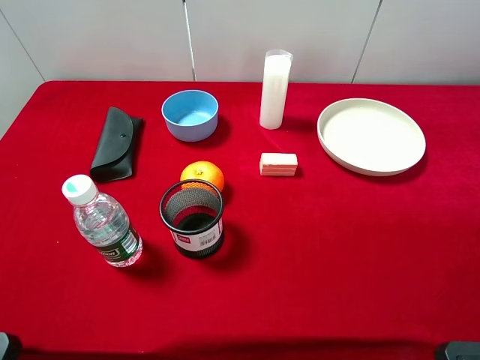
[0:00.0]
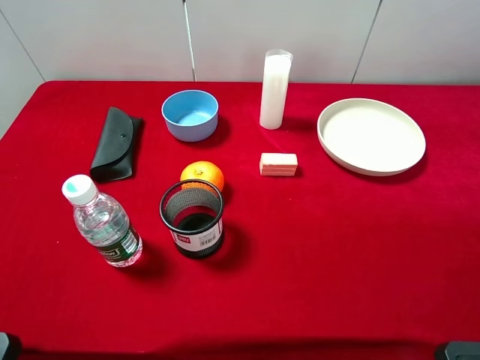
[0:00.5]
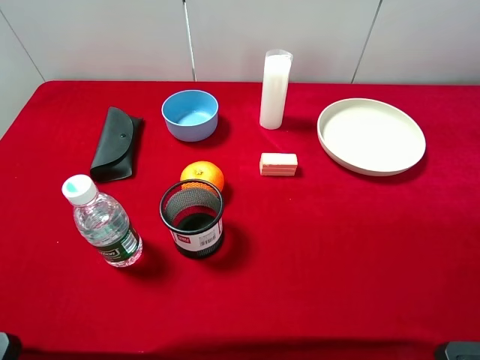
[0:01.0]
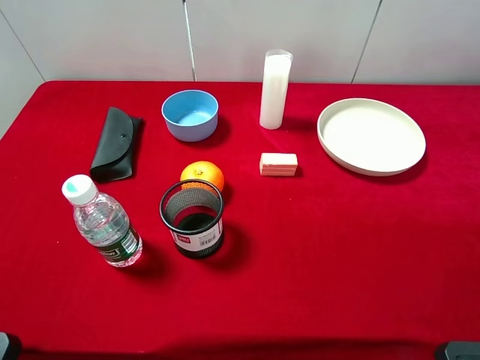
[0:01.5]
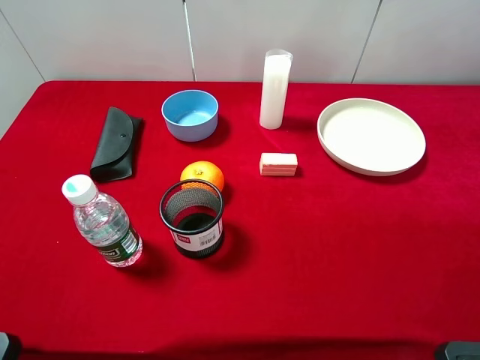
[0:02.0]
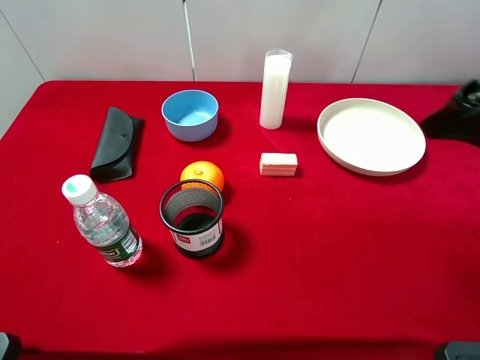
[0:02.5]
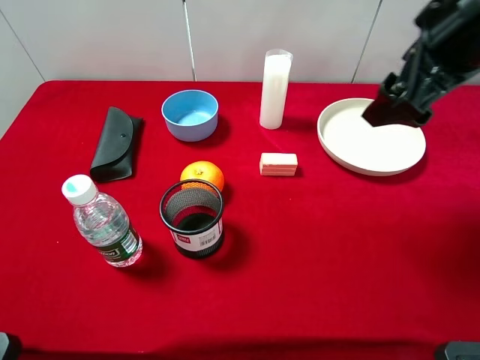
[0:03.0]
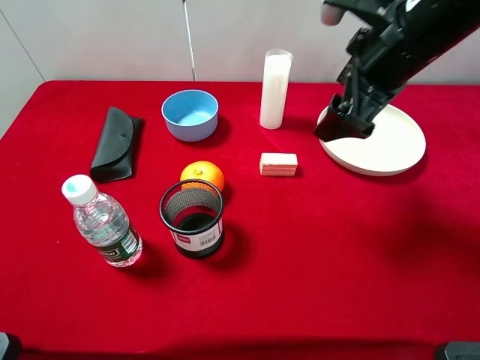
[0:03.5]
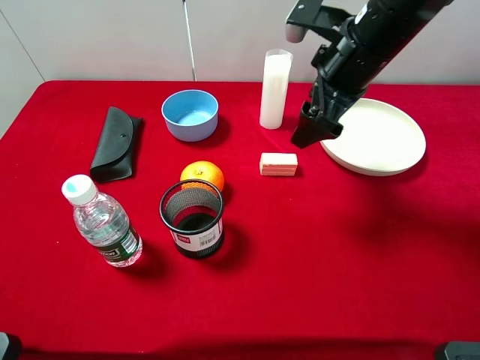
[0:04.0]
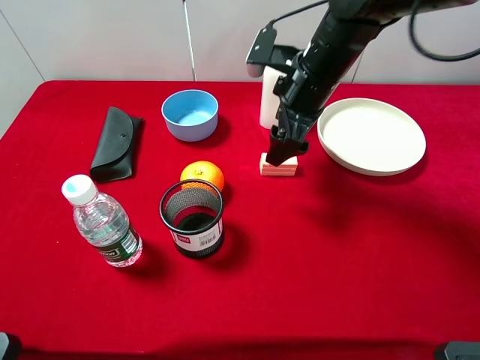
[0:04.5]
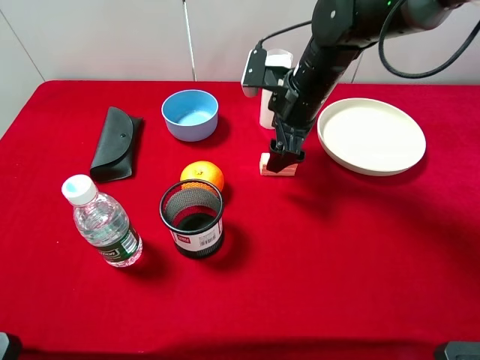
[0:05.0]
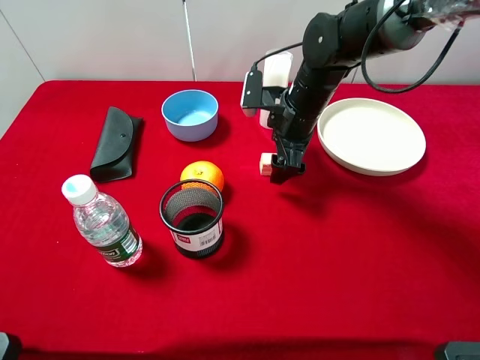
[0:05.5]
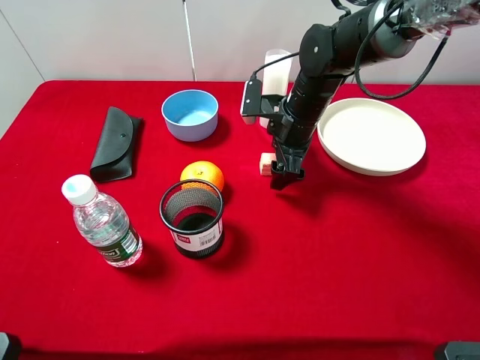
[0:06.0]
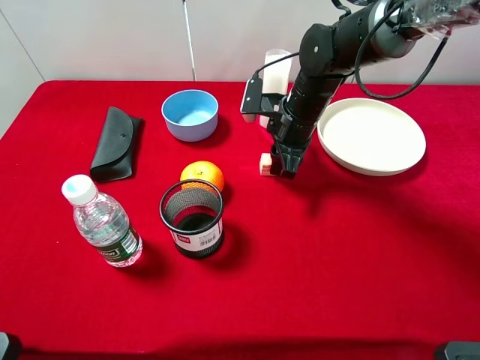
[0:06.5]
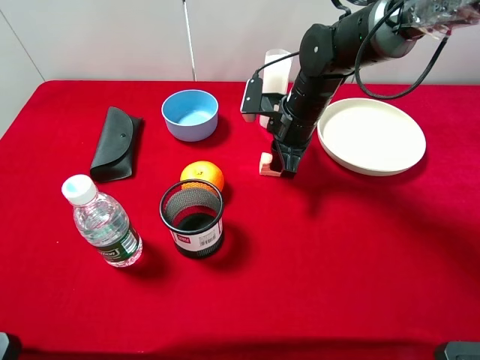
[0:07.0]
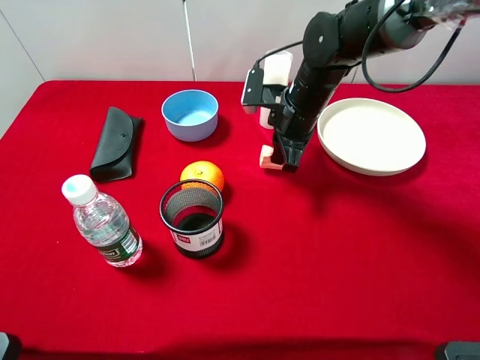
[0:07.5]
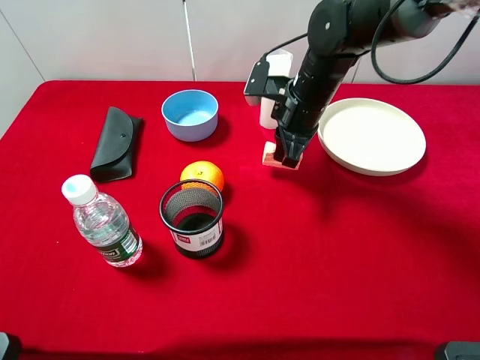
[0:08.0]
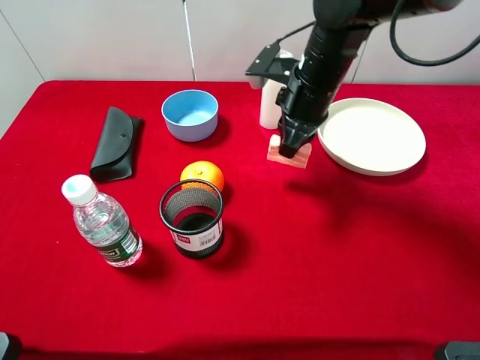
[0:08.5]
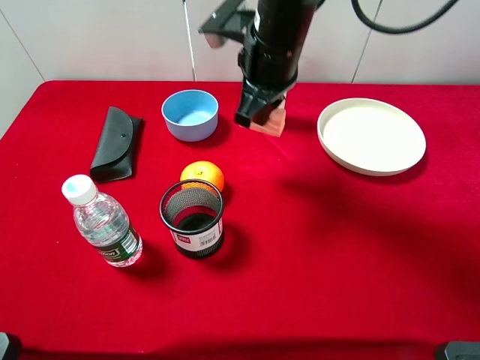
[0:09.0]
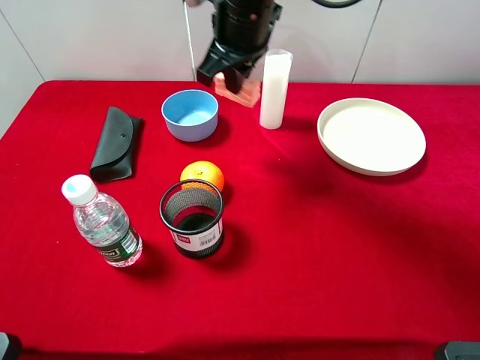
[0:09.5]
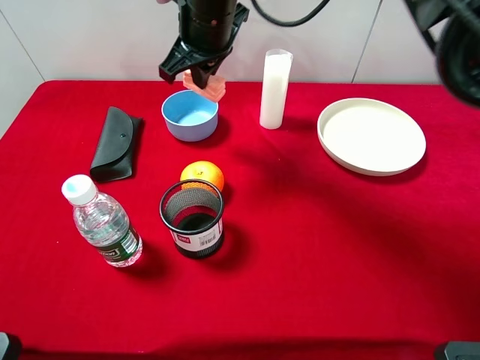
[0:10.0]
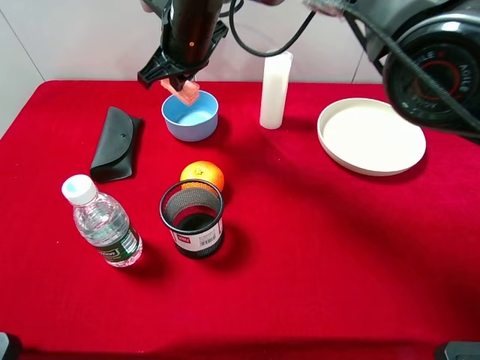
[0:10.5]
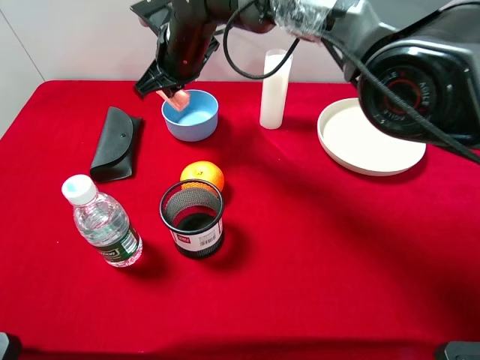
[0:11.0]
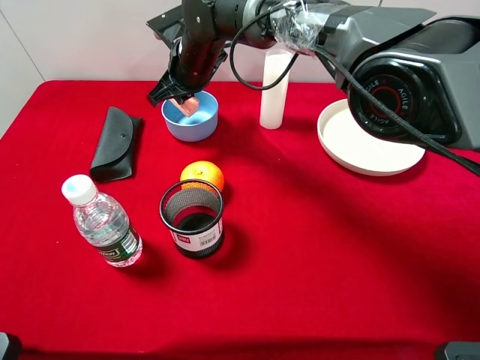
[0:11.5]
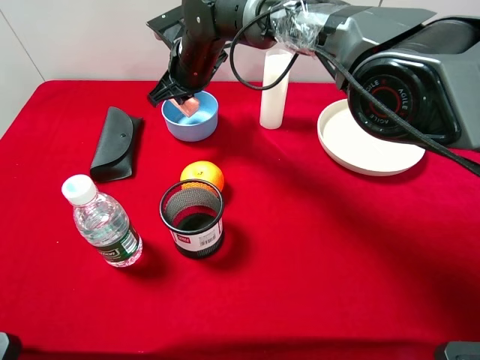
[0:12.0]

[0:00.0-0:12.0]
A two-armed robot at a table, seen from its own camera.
Task of the whole recording: pick up an item with a gripper and place it in a random container on the desktop.
0:02.0 to 0:04.0: The right gripper shifts roughly 25 cm forward and to the left.
0:04.0 to 0:06.0: The right gripper travels downward by some 15 cm.
0:06.0 to 0:08.0: The right gripper closes.
0:08.0 to 0:10.0: The right gripper moves to the left and upward, about 20 cm.
0:10.0 to 0:12.0: The right gripper shifts some 10 cm downward and forward.

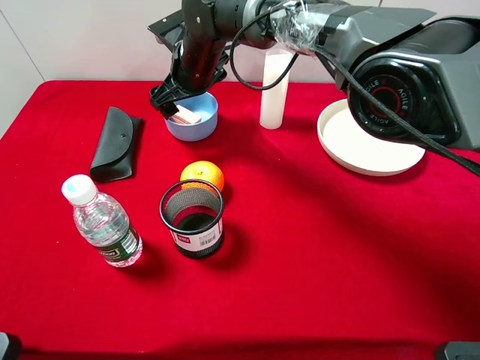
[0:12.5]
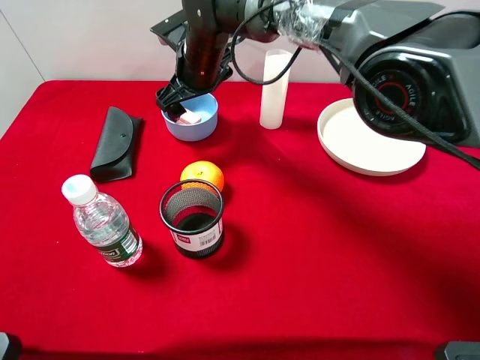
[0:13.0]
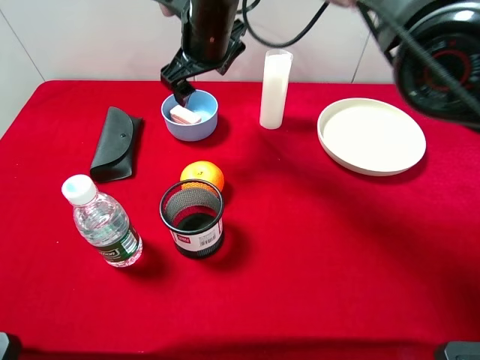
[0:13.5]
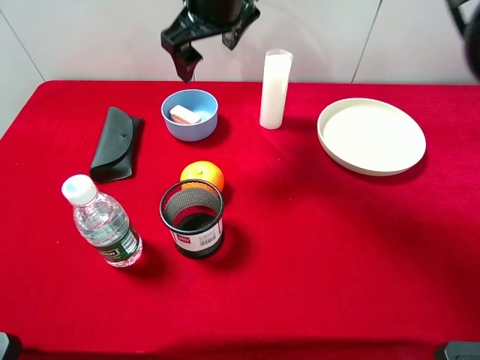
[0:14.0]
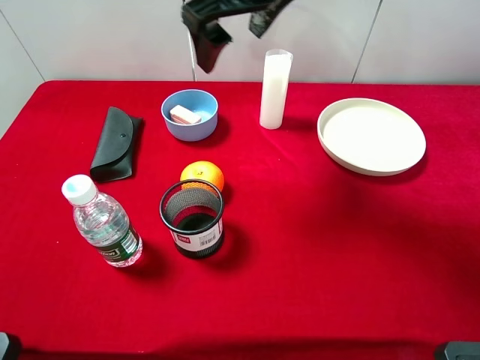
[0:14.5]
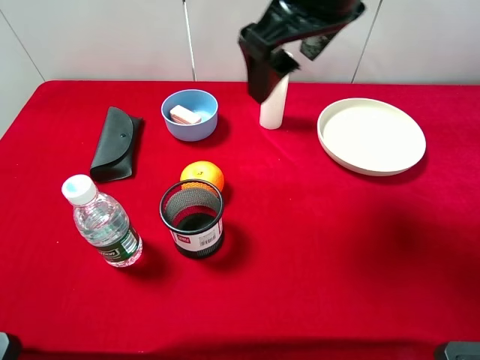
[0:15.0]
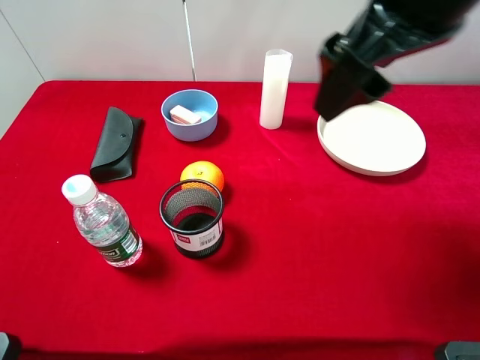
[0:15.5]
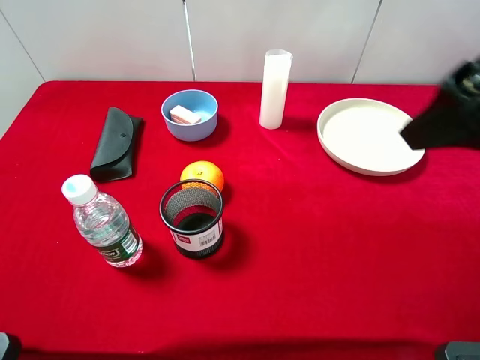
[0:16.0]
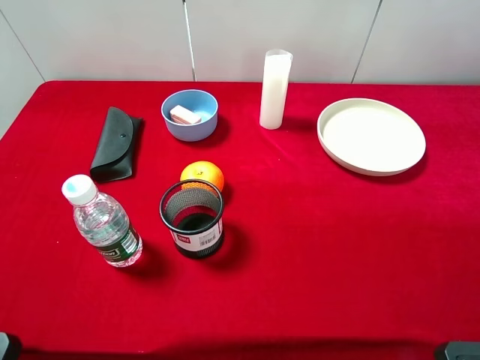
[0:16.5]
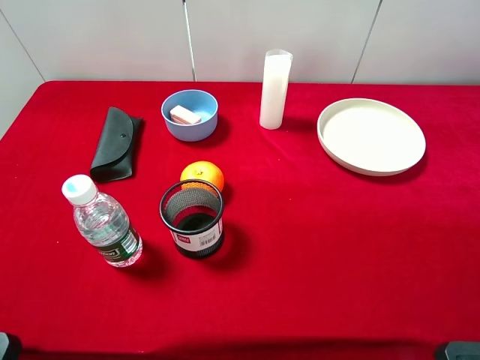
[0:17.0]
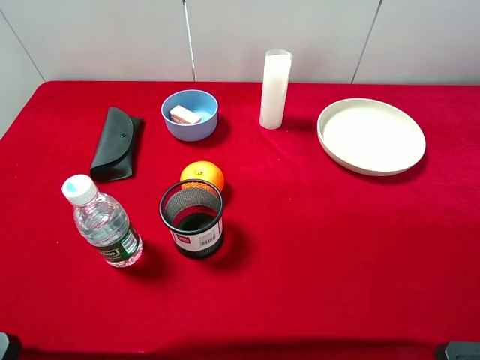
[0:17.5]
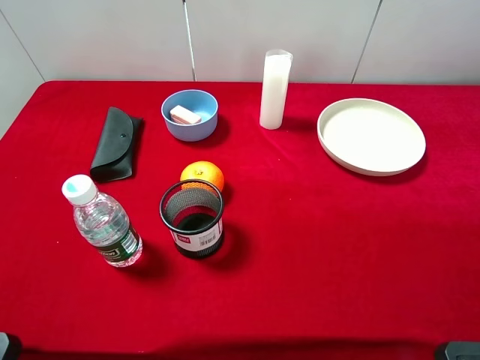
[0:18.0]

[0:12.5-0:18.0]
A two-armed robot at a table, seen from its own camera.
Task of the whole recording: pick up an item with a gripper and place it in a random container on the desktop.
0:12.5 to 0:14.5: The right gripper heads upward, backward and to the right, covering approximately 20 cm.
0:14.5 to 0:16.0: The right gripper travels to the right and backward by about 25 cm.
0:16.0 to 0:18.0: The right gripper heads backward, to the right and downward, covering about 20 cm.
